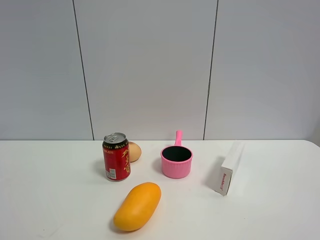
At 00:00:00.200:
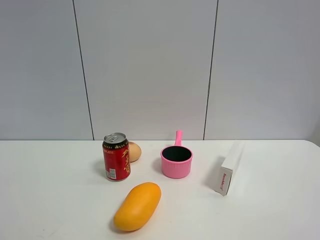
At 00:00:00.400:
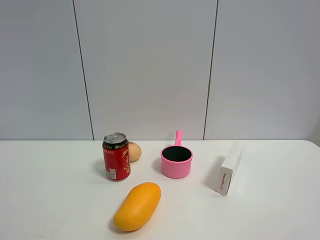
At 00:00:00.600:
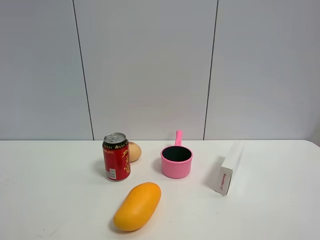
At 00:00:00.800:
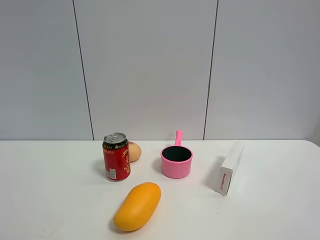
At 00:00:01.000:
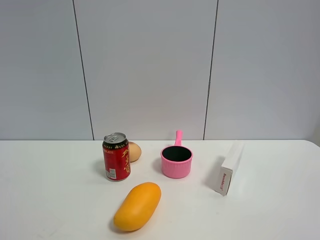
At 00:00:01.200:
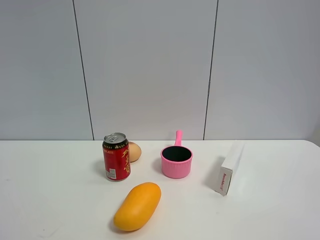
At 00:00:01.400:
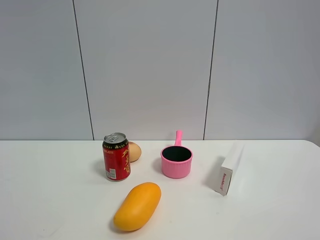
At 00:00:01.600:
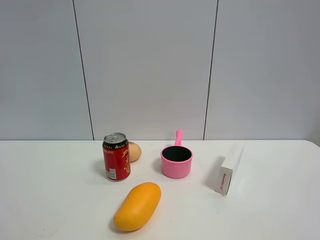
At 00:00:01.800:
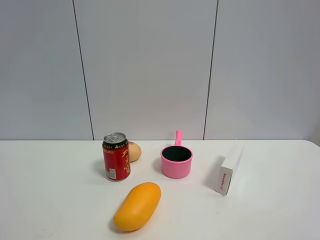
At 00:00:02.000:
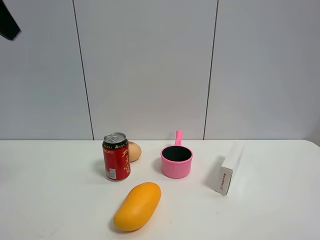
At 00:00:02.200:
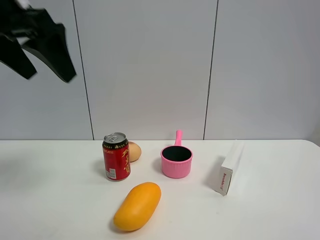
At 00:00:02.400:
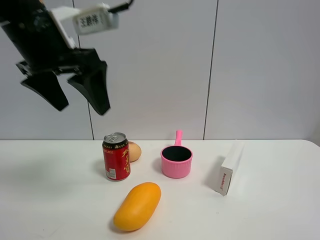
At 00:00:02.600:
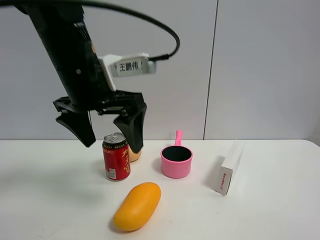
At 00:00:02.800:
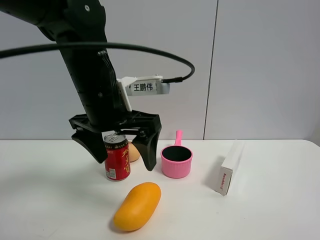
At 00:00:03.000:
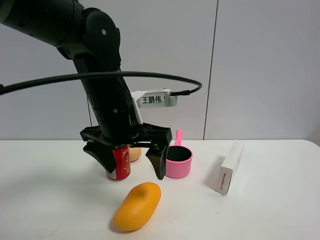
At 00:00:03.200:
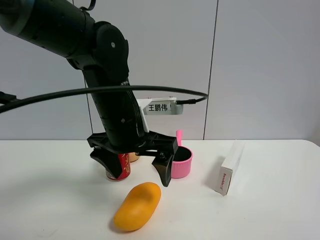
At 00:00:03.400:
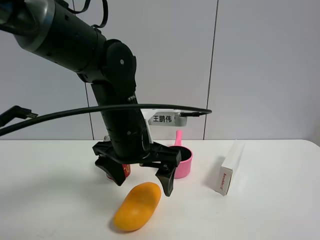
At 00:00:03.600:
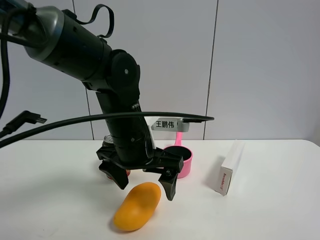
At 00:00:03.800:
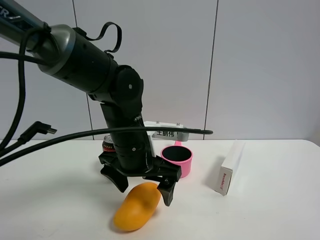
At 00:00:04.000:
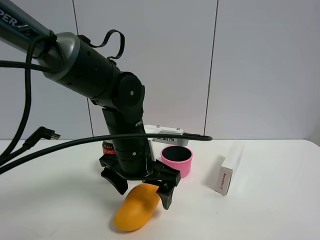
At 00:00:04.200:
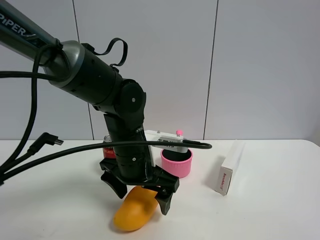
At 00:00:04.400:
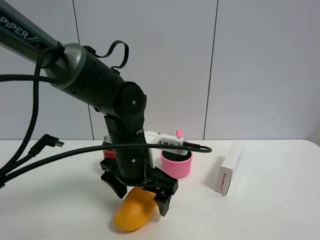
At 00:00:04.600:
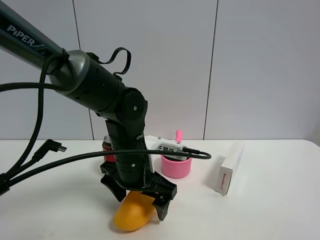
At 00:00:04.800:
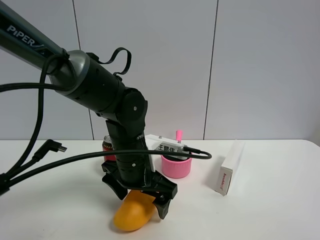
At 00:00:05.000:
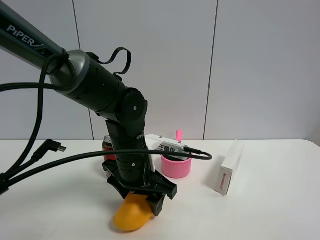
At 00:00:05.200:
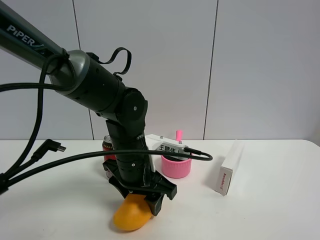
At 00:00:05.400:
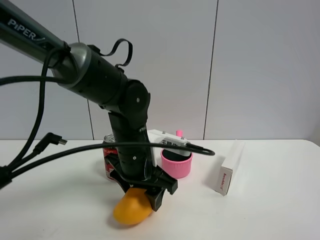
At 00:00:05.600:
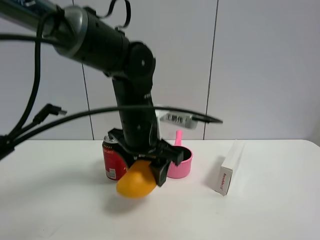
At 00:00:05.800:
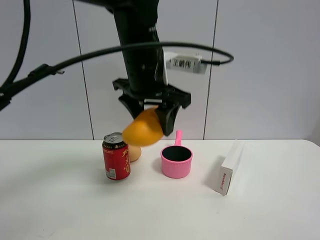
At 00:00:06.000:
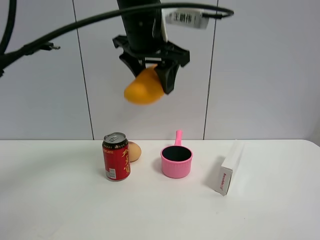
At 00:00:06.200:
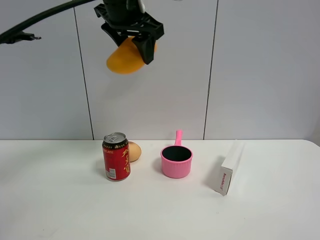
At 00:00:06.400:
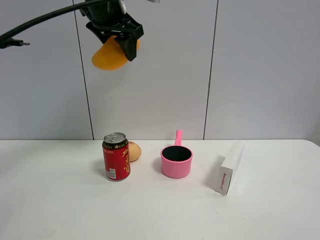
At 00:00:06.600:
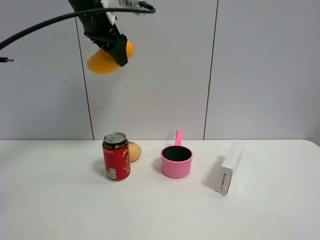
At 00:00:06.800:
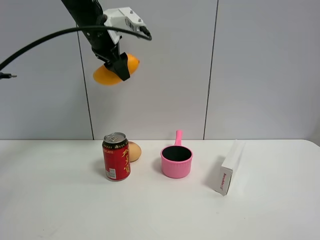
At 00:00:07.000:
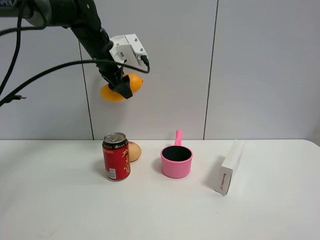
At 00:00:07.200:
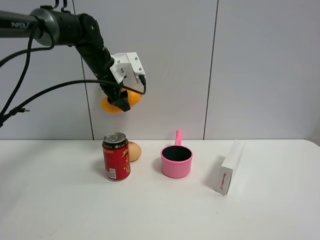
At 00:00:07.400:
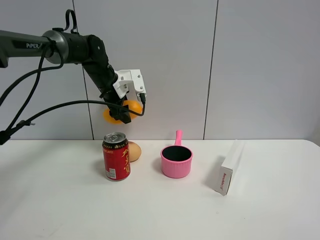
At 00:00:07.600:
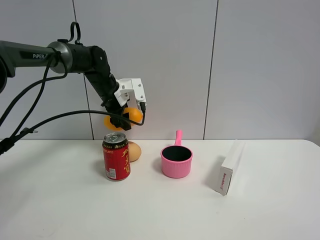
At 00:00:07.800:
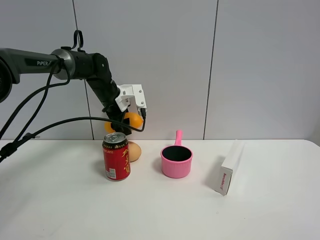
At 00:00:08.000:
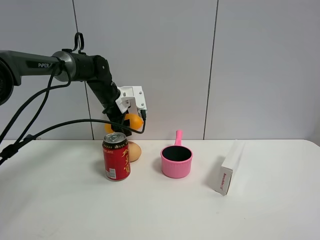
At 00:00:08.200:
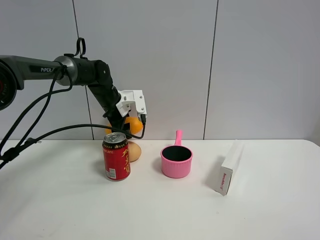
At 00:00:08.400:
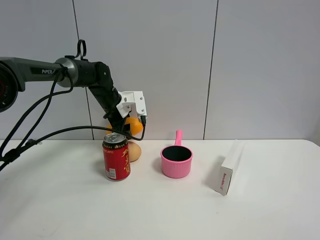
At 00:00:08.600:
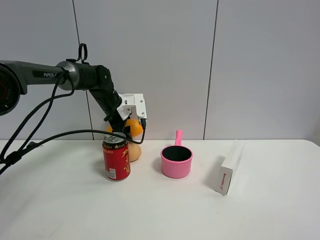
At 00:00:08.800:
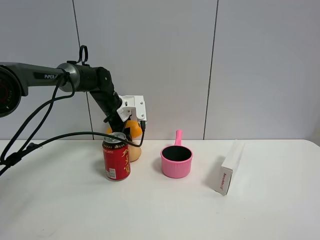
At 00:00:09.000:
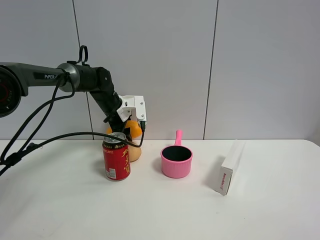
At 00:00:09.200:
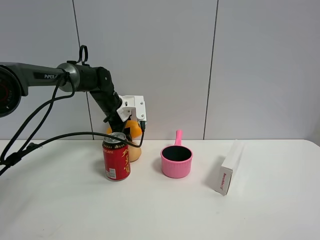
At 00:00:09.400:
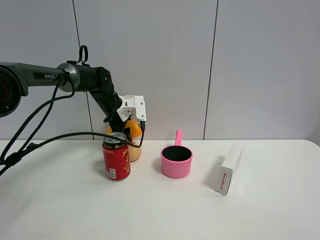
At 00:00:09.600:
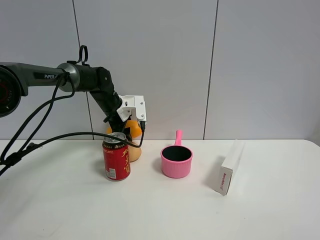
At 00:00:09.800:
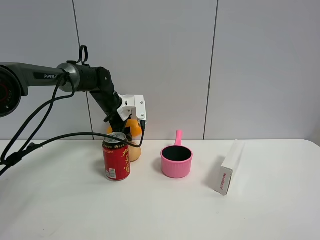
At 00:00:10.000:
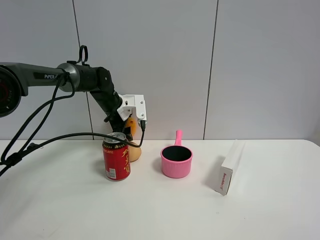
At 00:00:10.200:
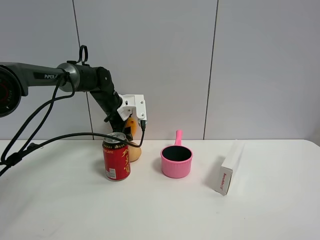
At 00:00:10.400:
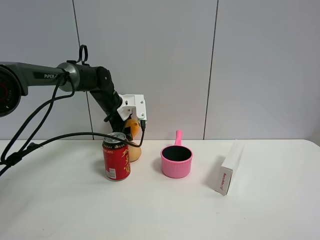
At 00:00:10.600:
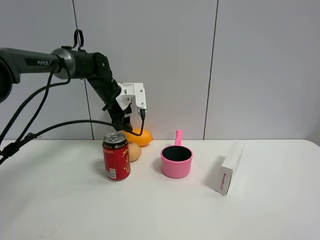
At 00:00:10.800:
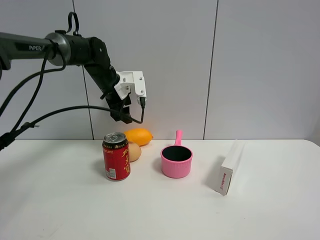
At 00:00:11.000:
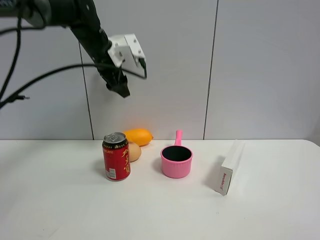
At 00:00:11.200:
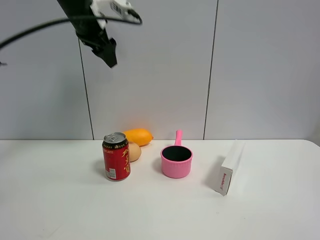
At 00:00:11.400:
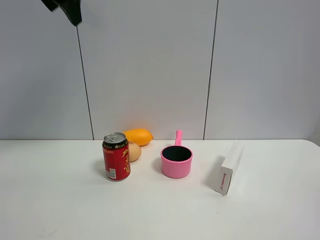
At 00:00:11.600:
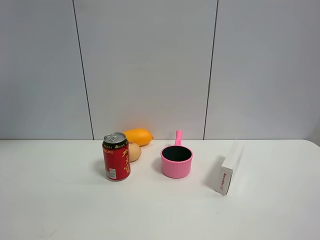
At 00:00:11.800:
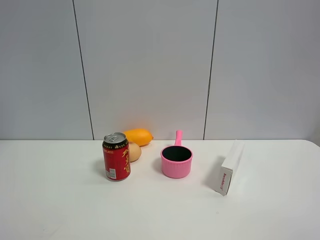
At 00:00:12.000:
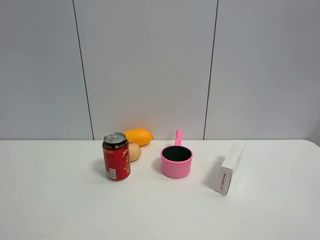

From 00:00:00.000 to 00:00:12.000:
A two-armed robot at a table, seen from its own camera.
Task of the whole recording: the gripper move the object.
Step, from 00:00:00.000 to 00:00:05.000: Grasp the mango with the left gripper.
Step, from 00:00:05.200 to 00:00:10.800: Place the mango on the table with the left gripper.
From 00:00:01.600 to 00:00:03.000: The left gripper shifts roughly 40 cm downward, to the right and forward.
From 00:00:03.000 to 00:00:04.400: The left gripper shifts some 10 cm downward.
From 00:00:04.400 to 00:00:06.000: The left gripper goes some 25 cm upward, and closes.
From 00:00:06.000 to 00:00:07.600: The left gripper travels downward, forward and to the left by some 25 cm.
From 00:00:07.600 to 00:00:09.000: The grippers move only a little.
From 00:00:09.000 to 00:00:10.400: The two grippers keep their place.
From 00:00:10.400 to 00:00:12.000: The left gripper goes roughly 50 cm upward, backward and to the left.

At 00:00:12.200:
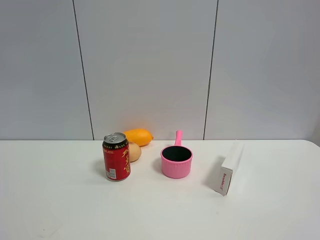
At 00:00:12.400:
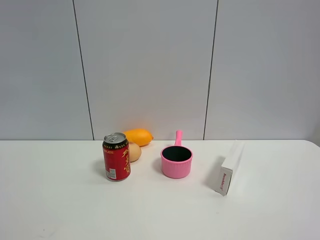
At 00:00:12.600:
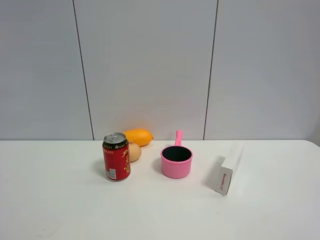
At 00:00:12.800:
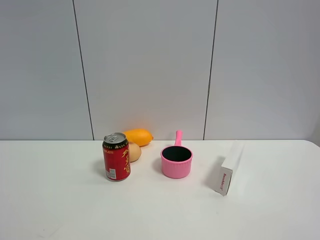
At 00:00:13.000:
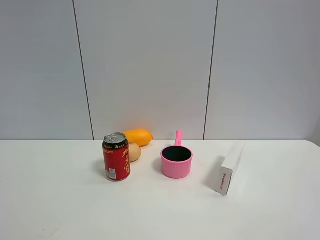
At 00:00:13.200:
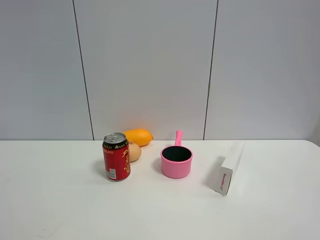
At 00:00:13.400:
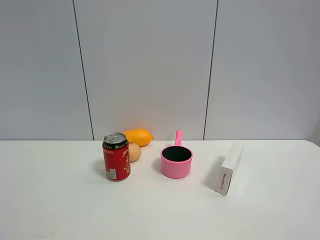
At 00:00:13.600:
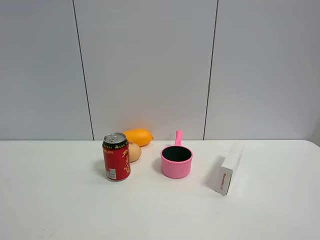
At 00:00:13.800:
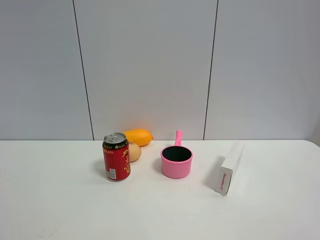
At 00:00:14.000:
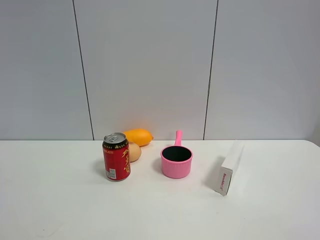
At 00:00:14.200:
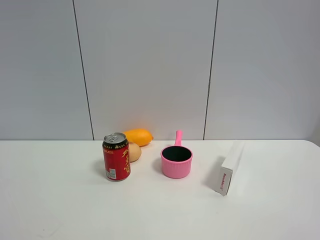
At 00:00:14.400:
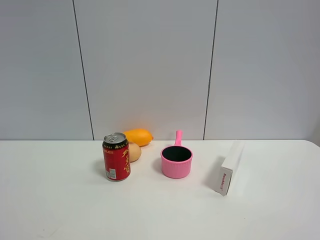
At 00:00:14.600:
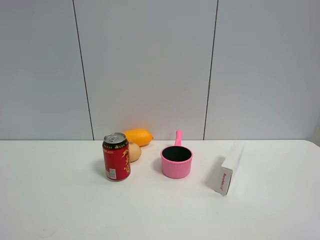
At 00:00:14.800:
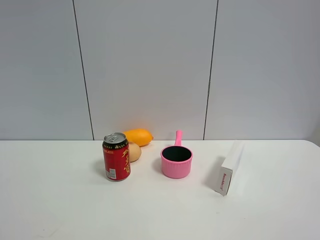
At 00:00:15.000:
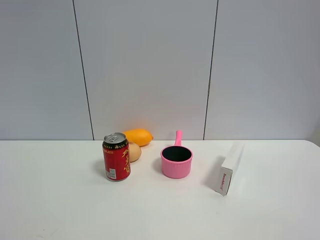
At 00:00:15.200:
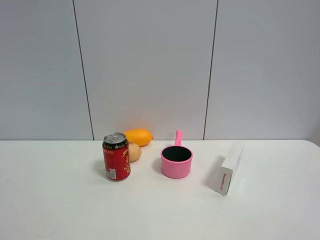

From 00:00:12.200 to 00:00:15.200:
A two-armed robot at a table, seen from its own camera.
Task of the whole recording: the gripper move the object.
From 00:00:13.800 to 00:00:15.200: Both grippers stay about where they are.
